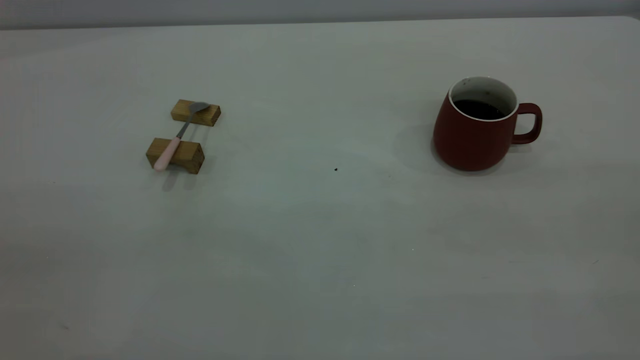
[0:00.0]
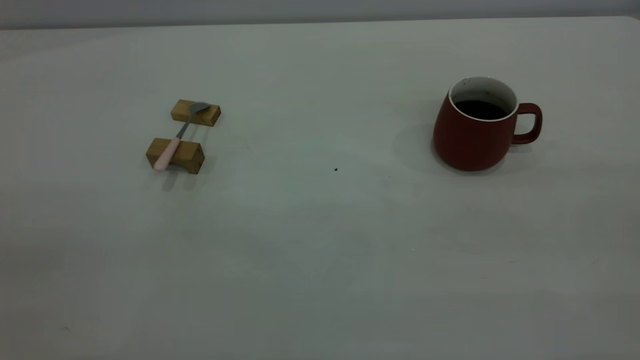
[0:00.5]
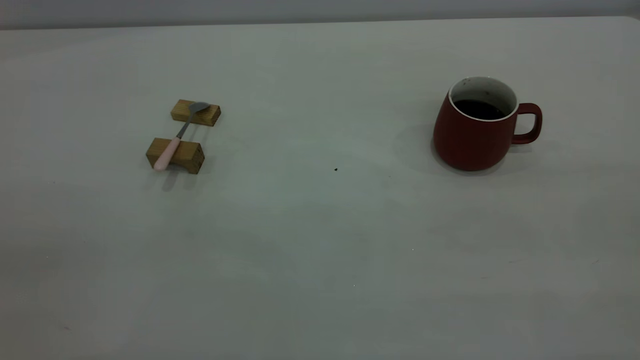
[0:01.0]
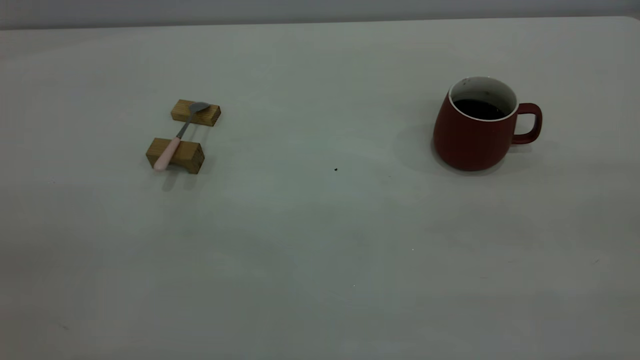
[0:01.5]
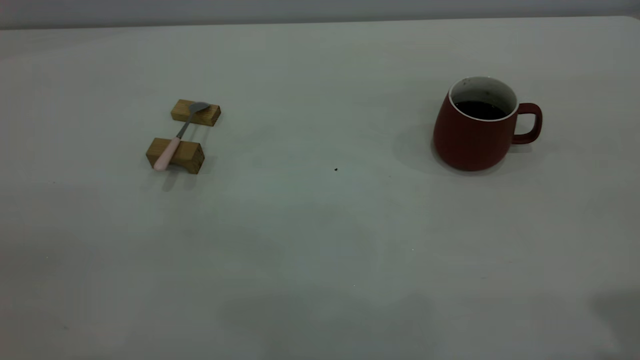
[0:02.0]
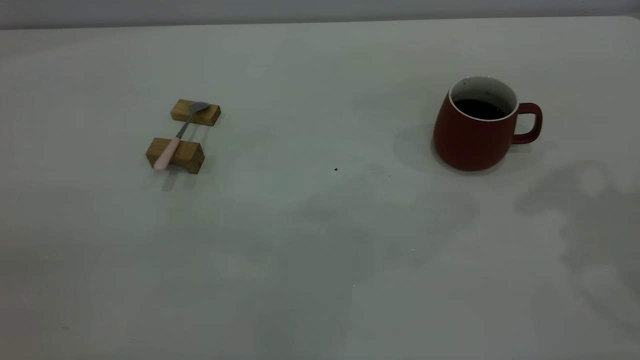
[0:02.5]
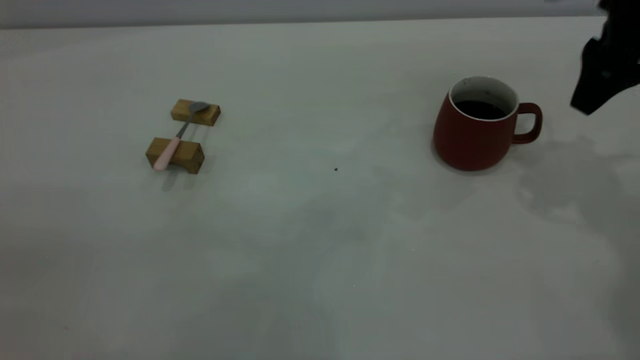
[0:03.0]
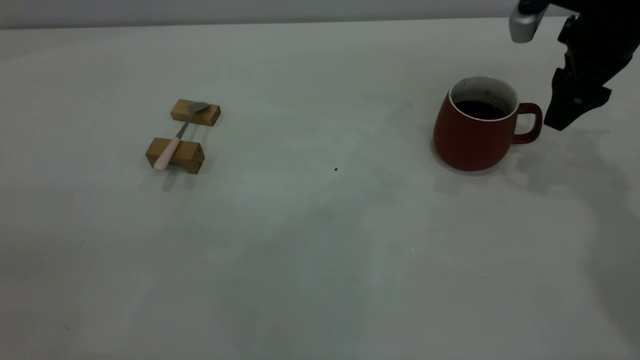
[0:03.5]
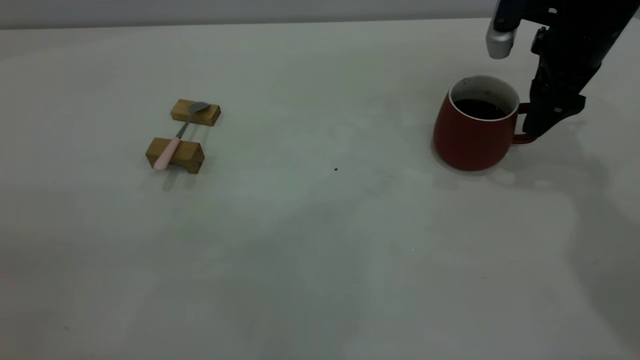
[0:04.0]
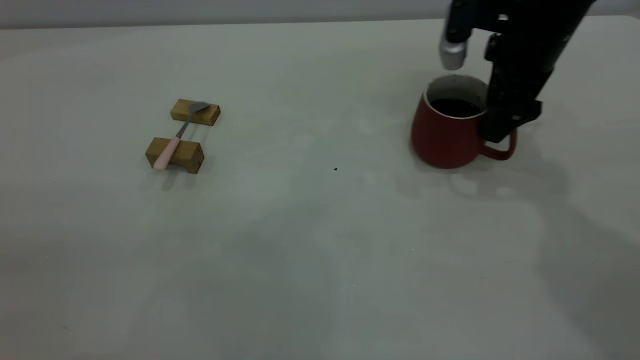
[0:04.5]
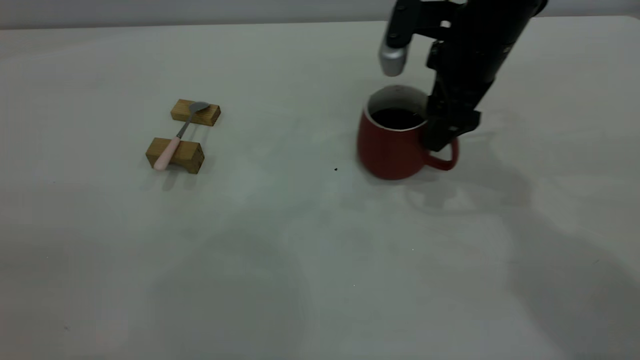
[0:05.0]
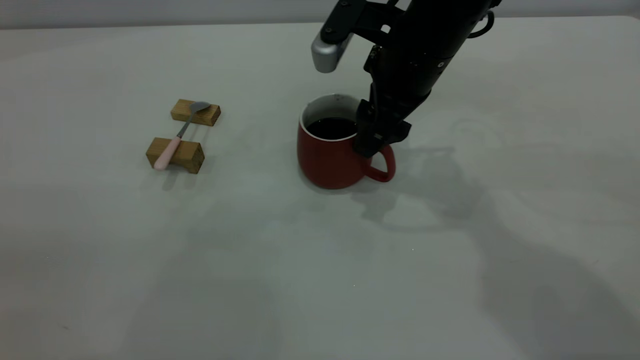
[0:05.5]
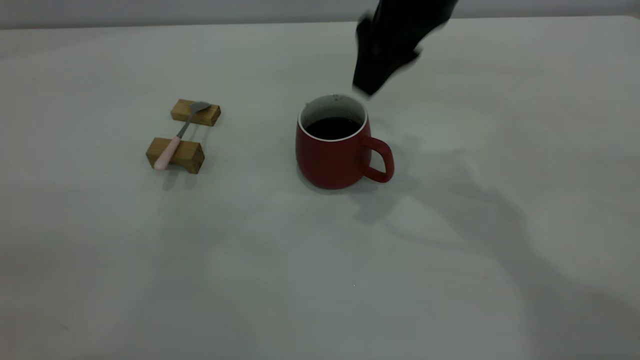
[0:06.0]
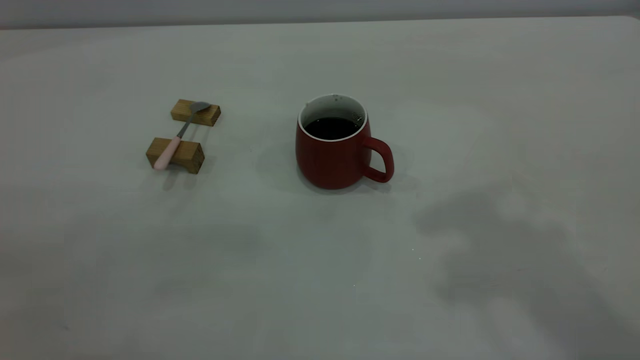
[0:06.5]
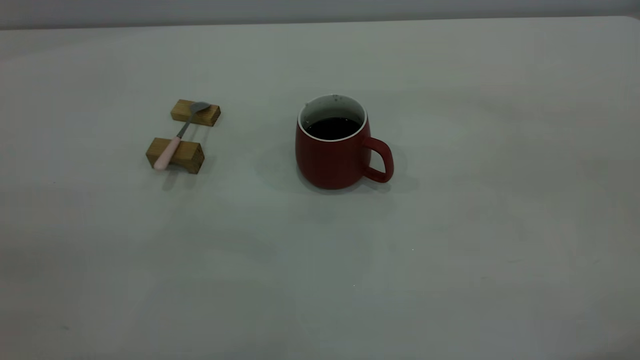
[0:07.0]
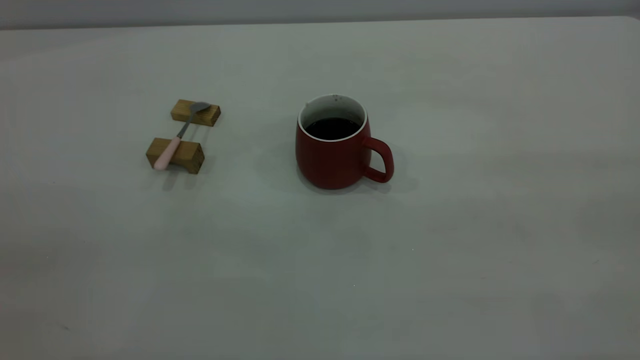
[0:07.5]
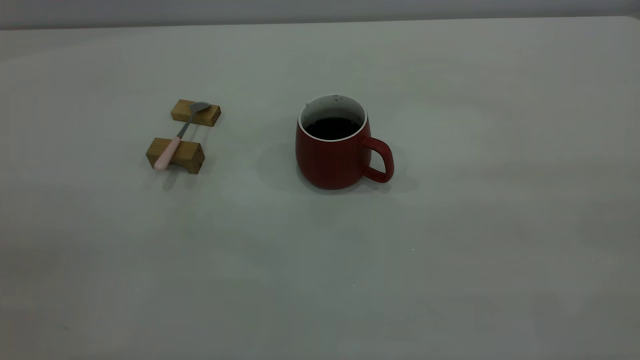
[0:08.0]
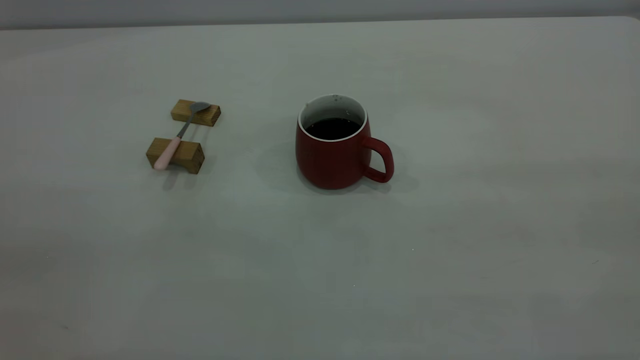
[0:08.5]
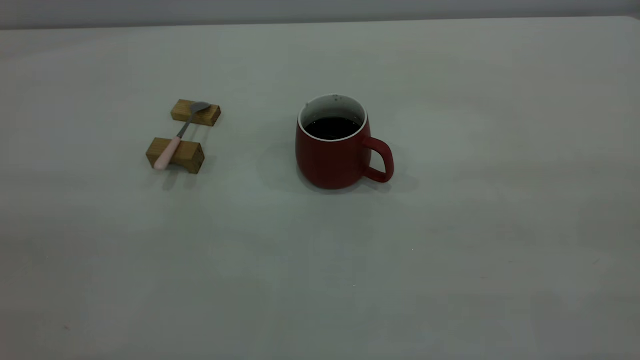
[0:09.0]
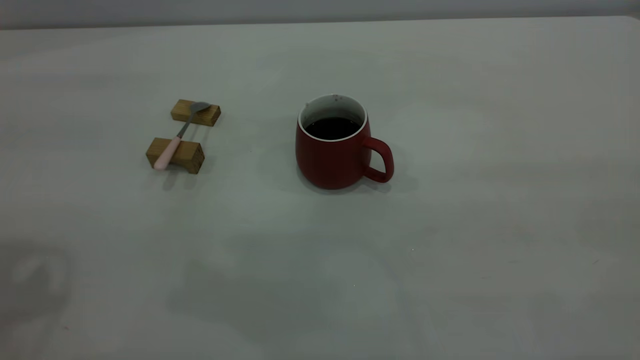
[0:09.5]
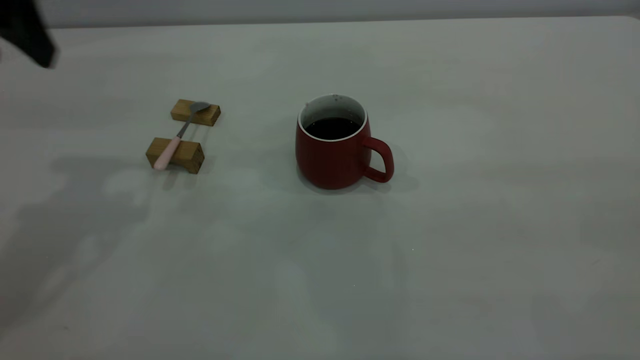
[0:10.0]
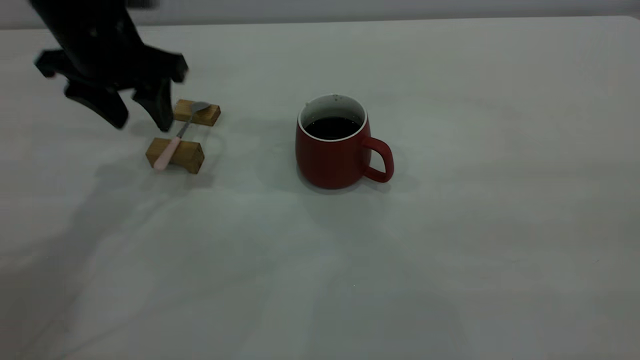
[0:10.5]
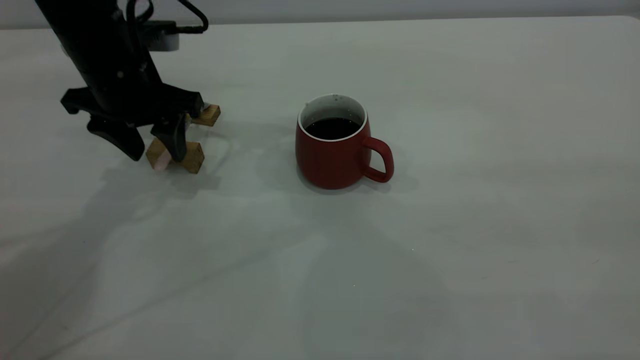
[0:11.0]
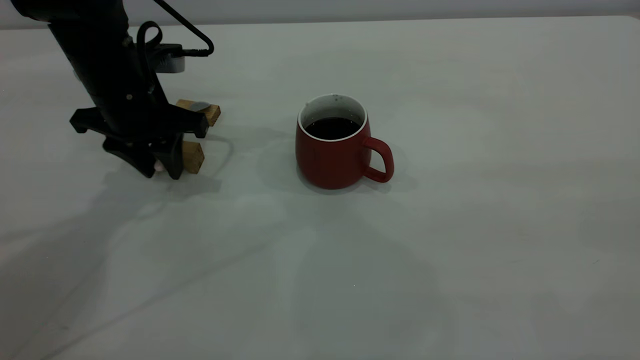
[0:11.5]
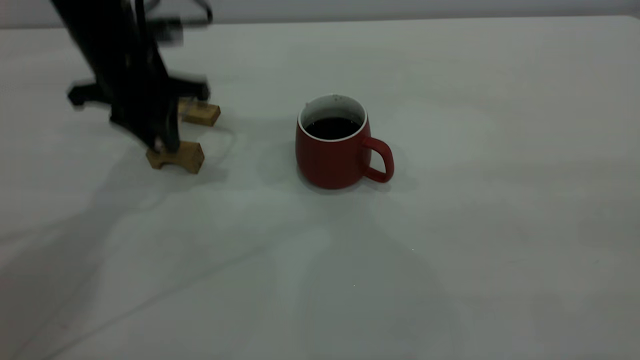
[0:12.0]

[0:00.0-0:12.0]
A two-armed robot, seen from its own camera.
Step, 0:00.0 to 0:05.5: Move the cup with coffee to the center of view.
Step, 0:06.0 to 0:12.0: Pick up the spoon.
0:02.0 to 0:04.0: The right gripper travels forward and downward by approximately 40 cm, and opens up.
0:04.0 to 0:06.0: The right gripper heads to the left and upward, covering some 20 cm.
0:06.0 to 0:08.0: The right gripper travels backward and to the right by some 40 cm.
0:08.0 to 0:10.0: The left gripper goes approximately 35 cm forward, and opens its fingers.
0:10.0 to 0:12.0: The left gripper goes some 15 cm downward, forward and to the right, and closes up.

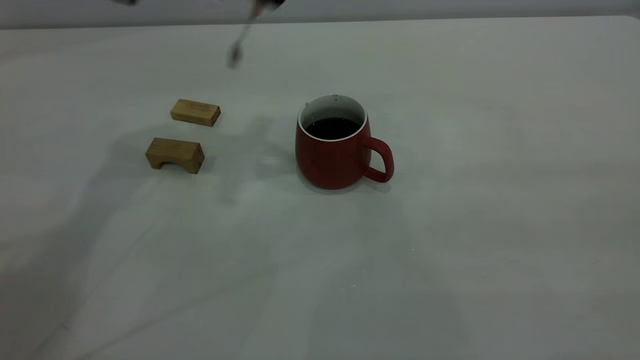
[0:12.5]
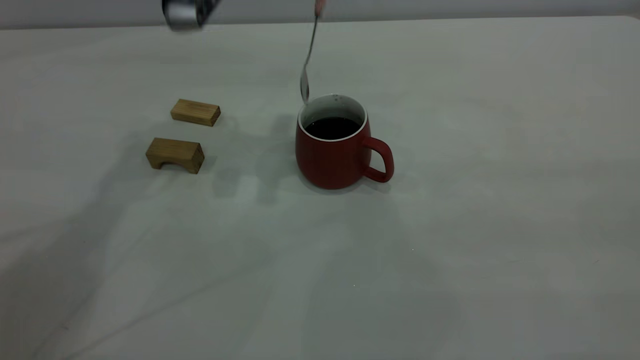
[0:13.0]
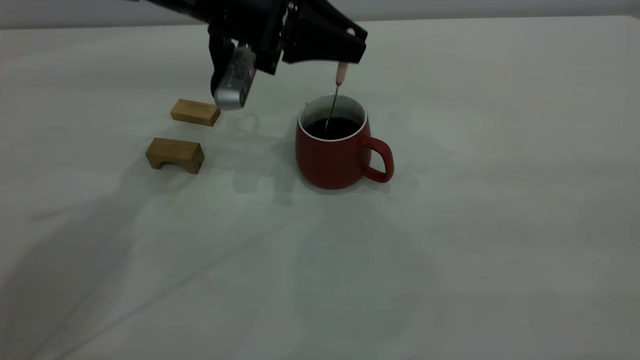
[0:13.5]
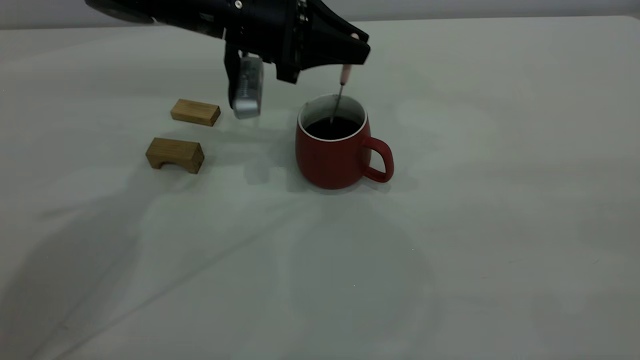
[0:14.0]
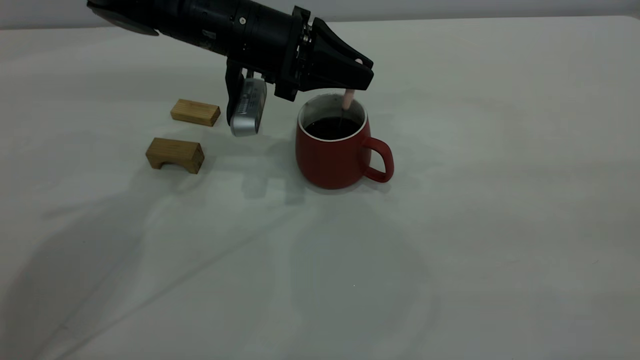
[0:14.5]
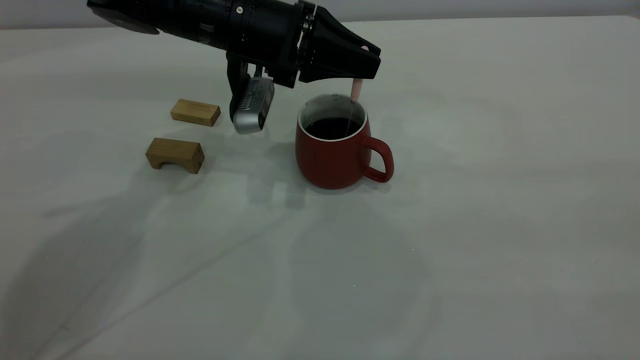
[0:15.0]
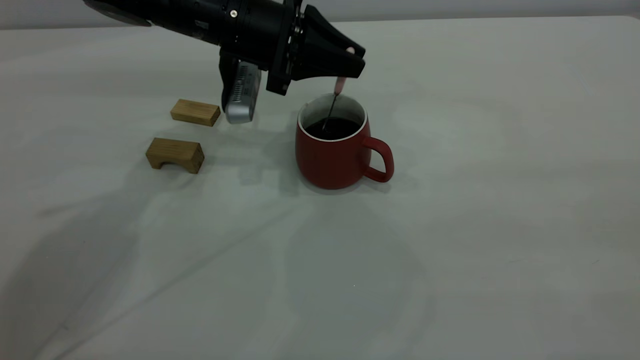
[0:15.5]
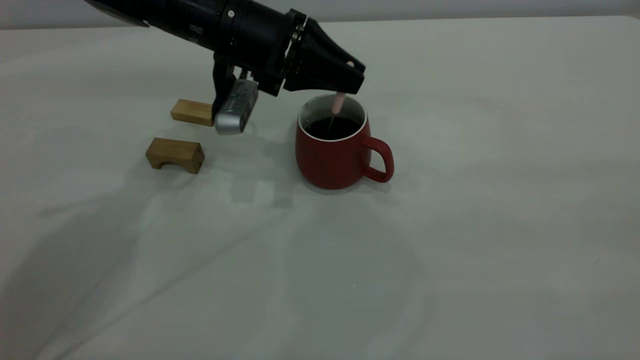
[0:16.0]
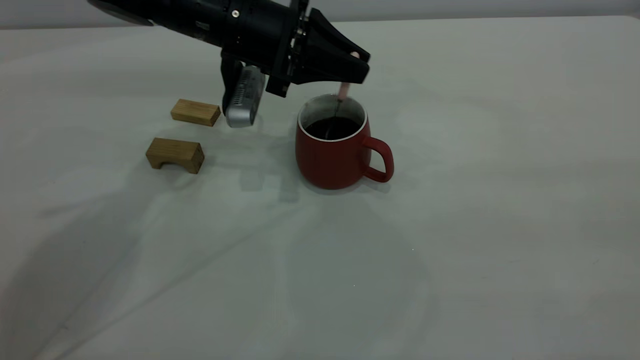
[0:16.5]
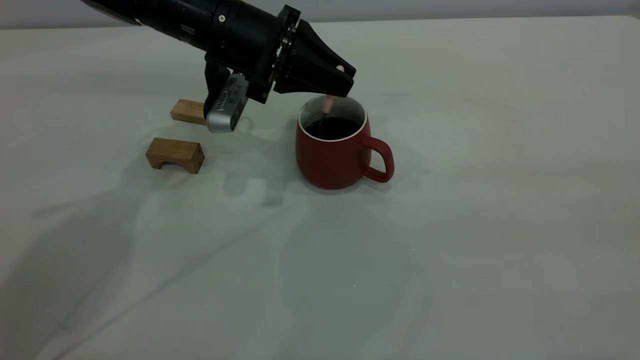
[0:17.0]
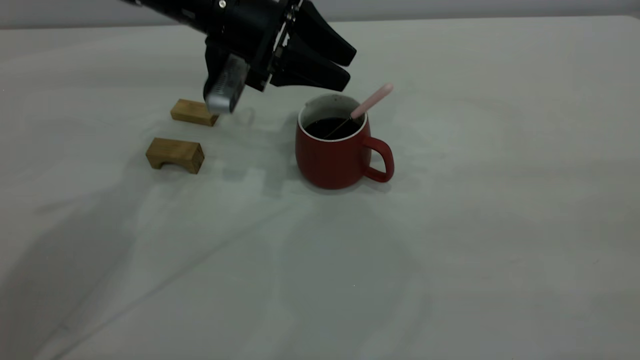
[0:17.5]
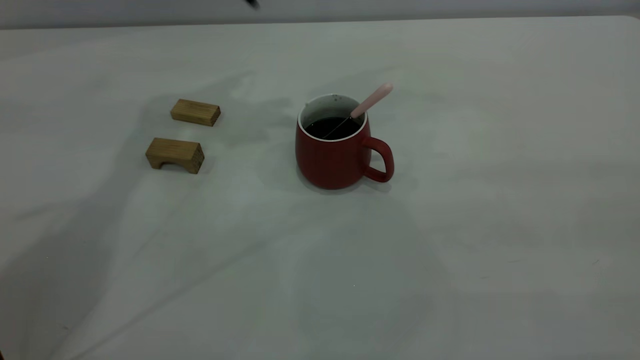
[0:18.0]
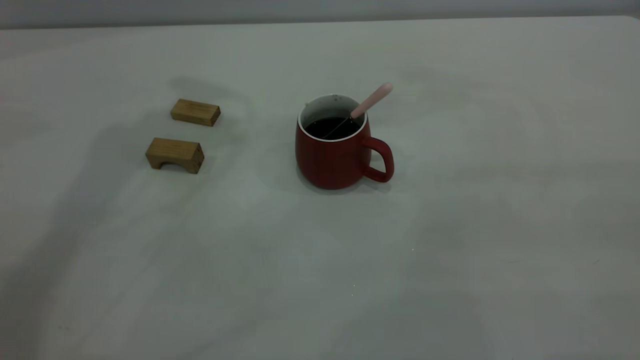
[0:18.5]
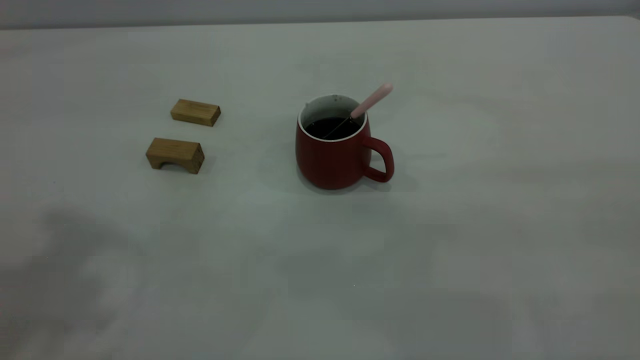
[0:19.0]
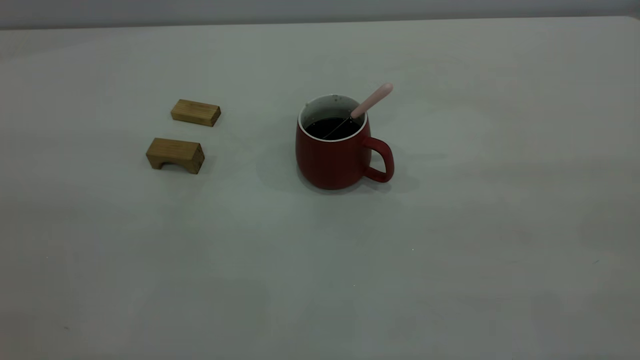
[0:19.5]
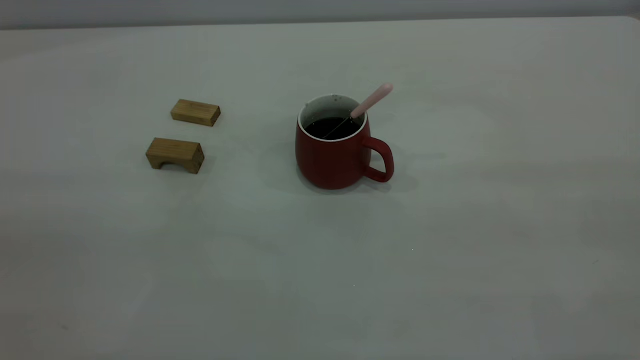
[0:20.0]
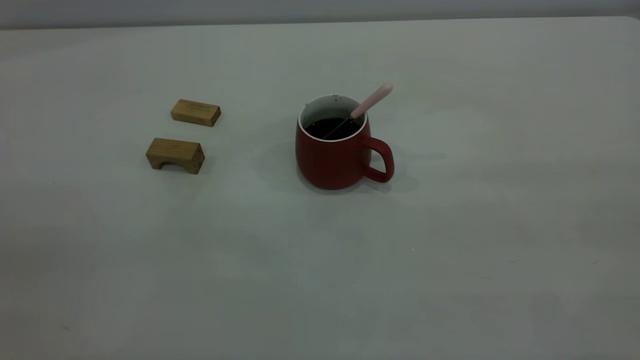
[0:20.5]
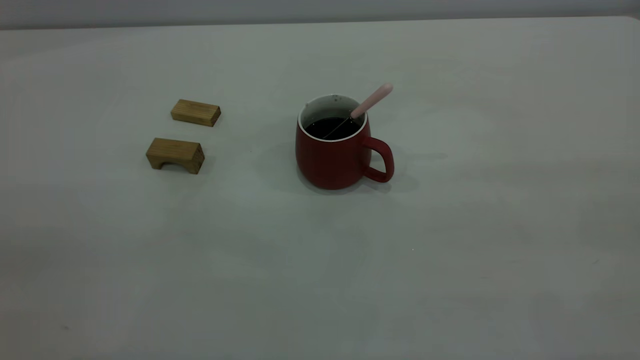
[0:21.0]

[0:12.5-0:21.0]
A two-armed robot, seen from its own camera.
Step, 0:12.5 to 0:17.5: Stir the coffee in the cup.
0:12.5 to 0:14.5: The left gripper shifts some 15 cm downward.
0:14.5 to 0:16.5: The grippers move only a little.
0:16.5 to 0:19.0: The left gripper goes roughly 40 cm upward, backward and to the left, and opens its fingers.
